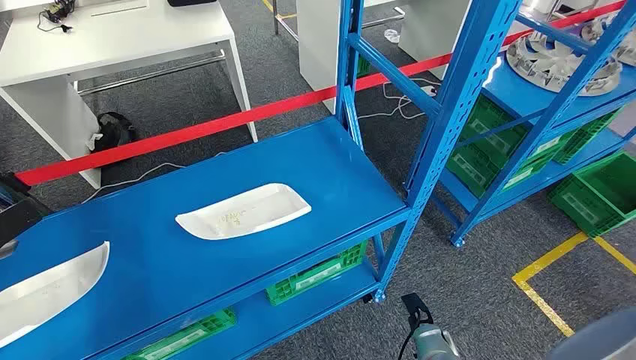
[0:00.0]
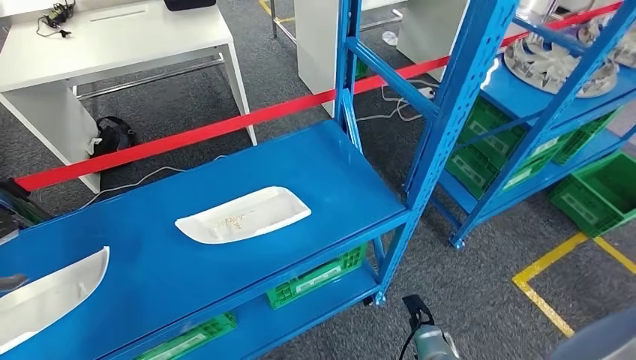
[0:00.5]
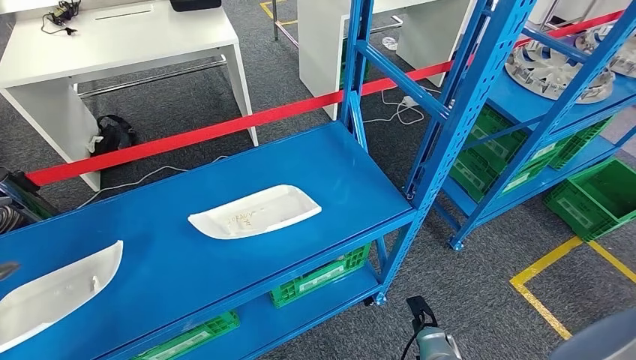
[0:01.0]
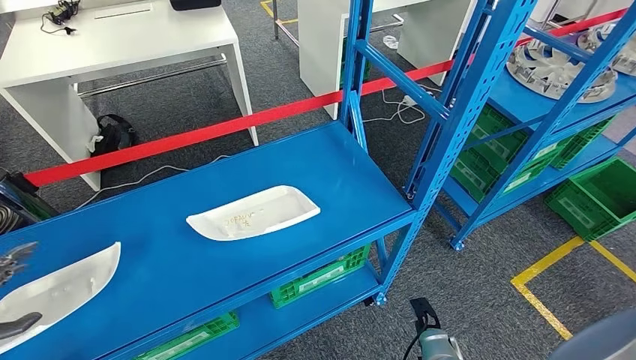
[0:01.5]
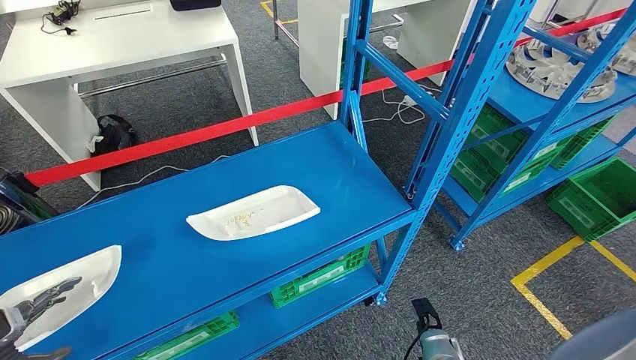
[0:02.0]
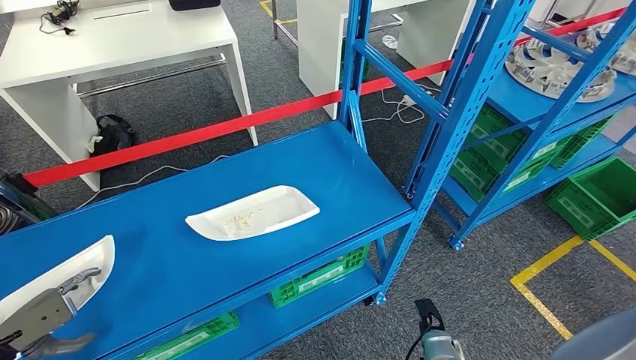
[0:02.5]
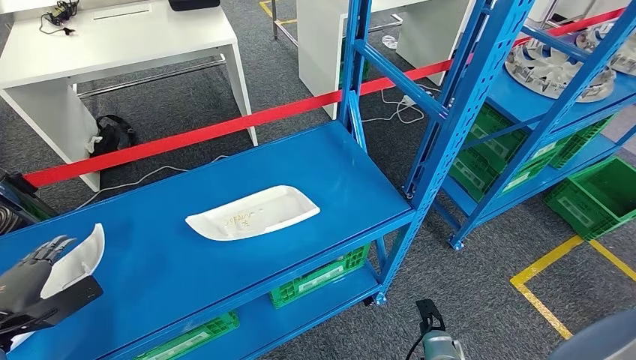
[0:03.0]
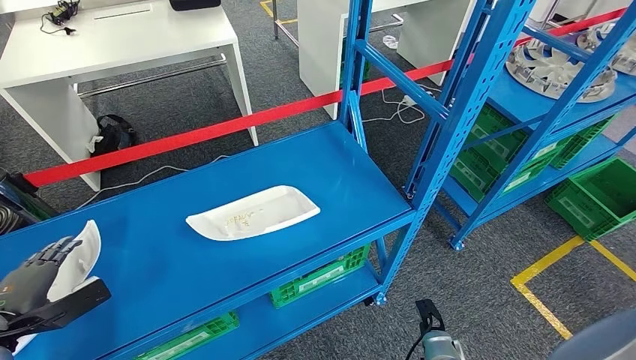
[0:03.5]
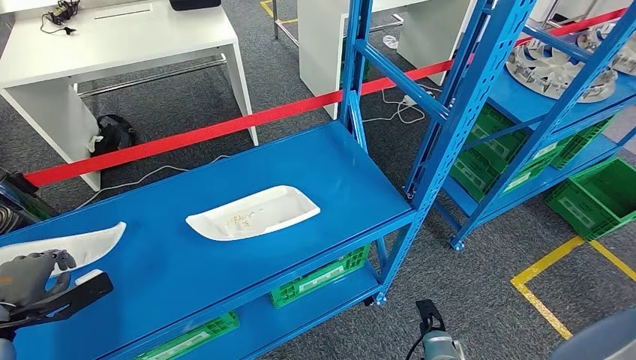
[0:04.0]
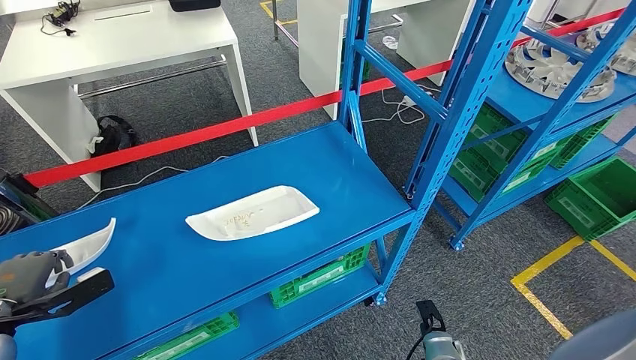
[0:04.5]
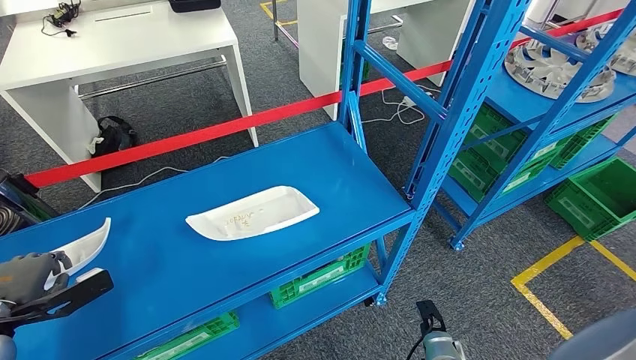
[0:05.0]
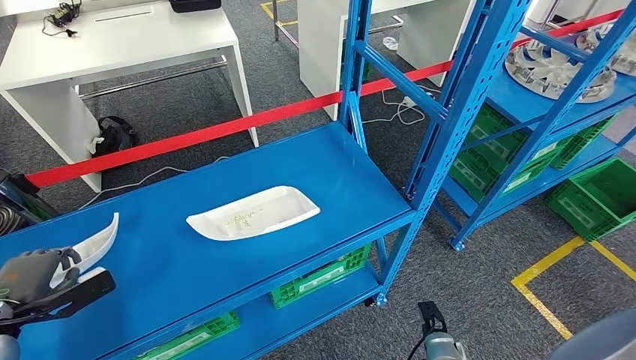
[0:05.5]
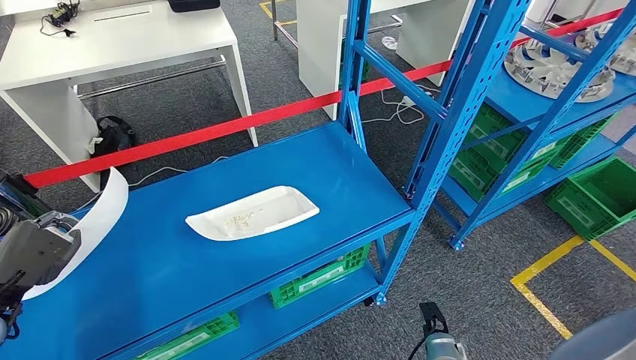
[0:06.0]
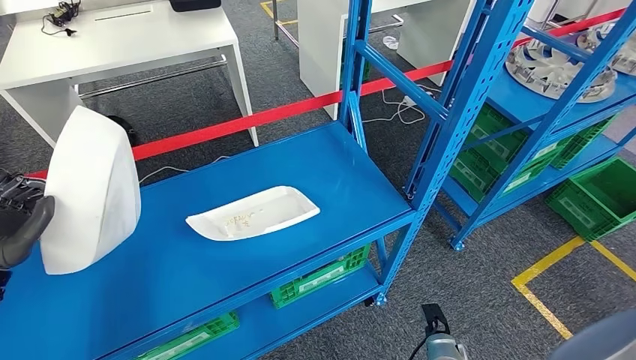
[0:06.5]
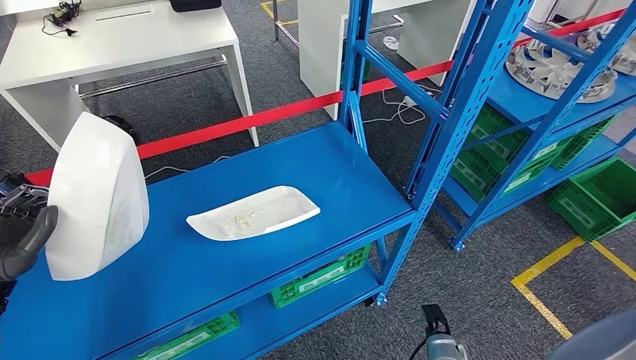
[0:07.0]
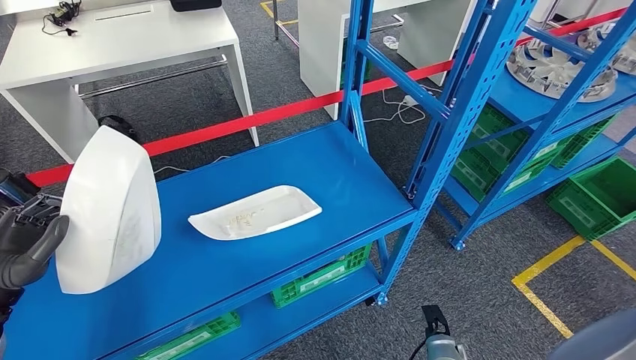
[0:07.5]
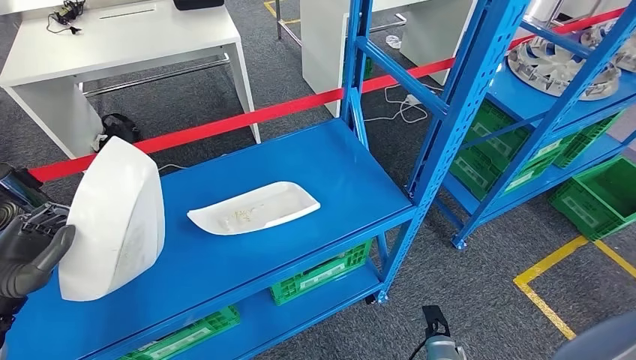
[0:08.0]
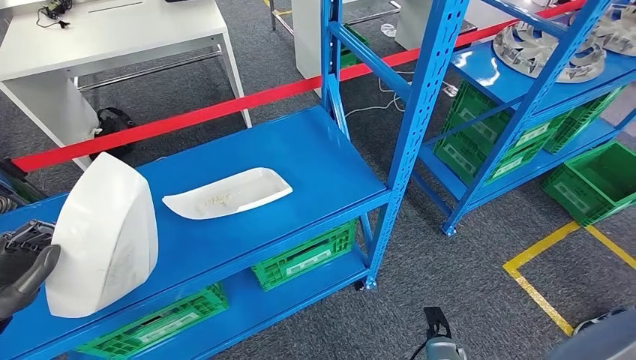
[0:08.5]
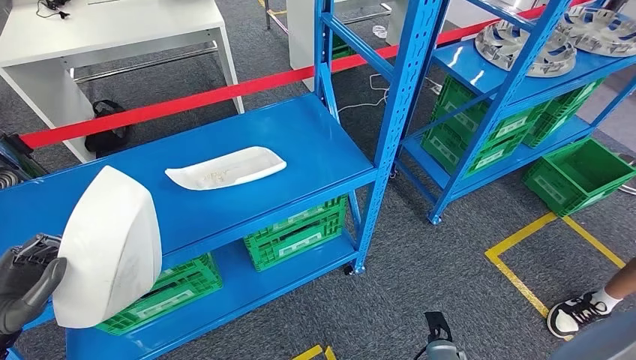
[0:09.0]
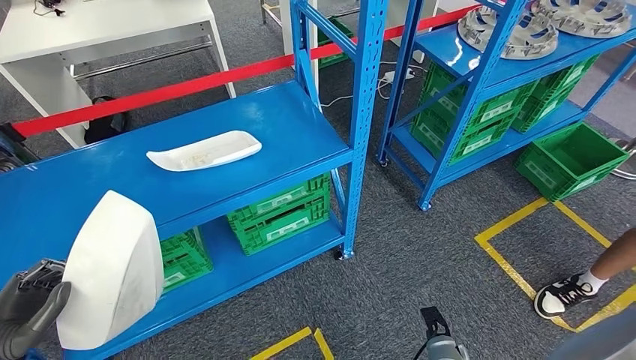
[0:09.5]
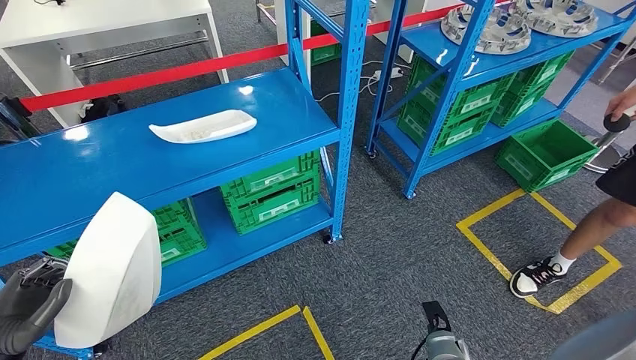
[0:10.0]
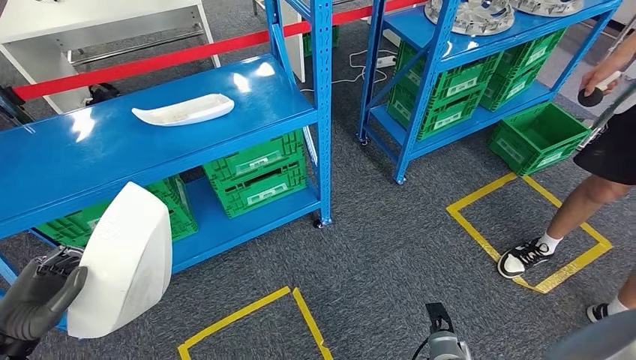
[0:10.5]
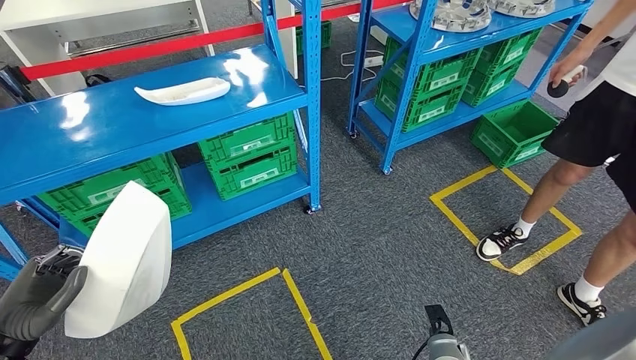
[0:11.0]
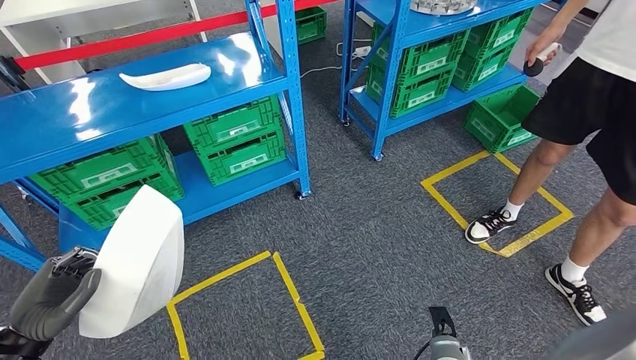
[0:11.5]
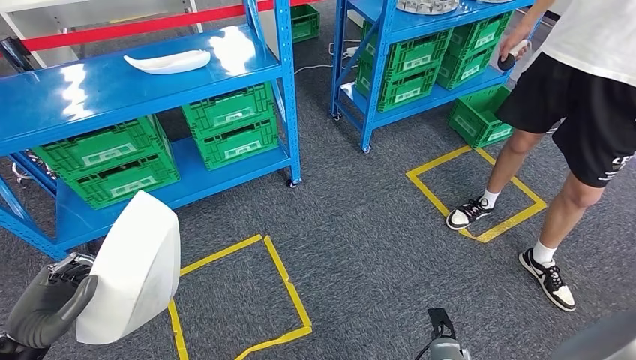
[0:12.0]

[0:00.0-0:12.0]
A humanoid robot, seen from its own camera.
Step, 0:00.0 to 0:07.5: Take small components from the rack.
0:02.0 to 0:04.0: The left hand is displaced to the right by some 5 cm.

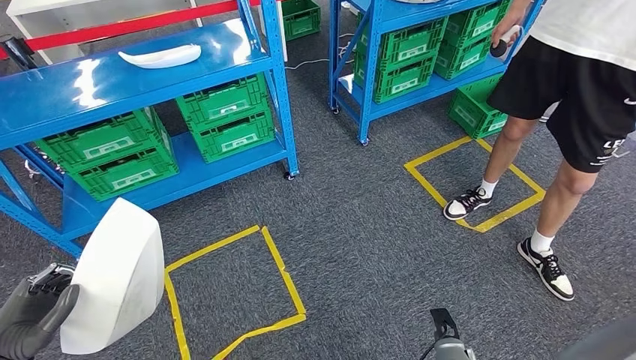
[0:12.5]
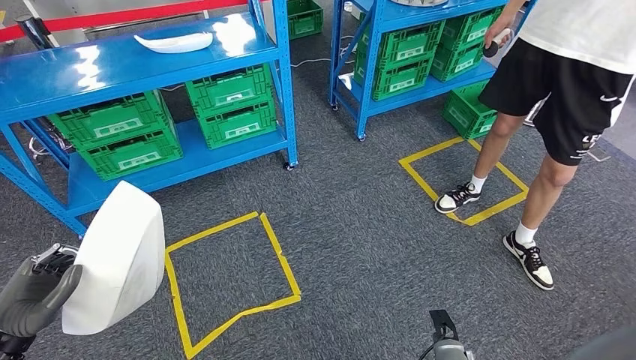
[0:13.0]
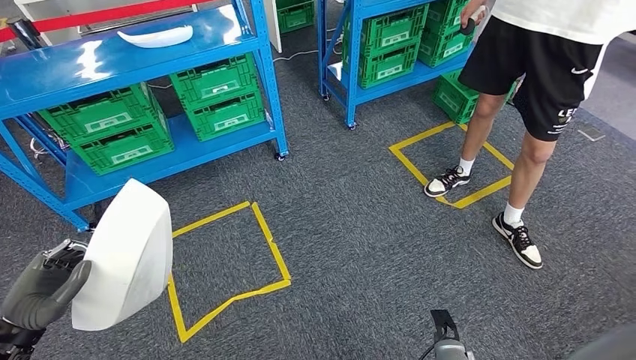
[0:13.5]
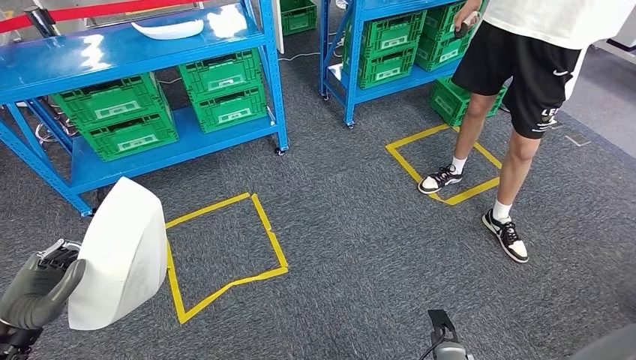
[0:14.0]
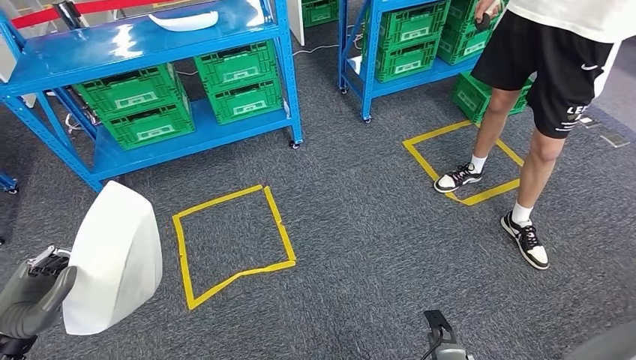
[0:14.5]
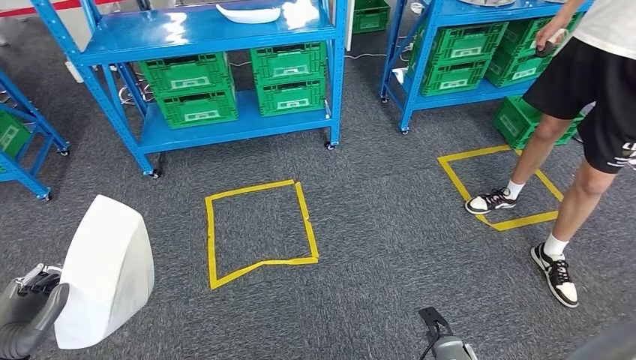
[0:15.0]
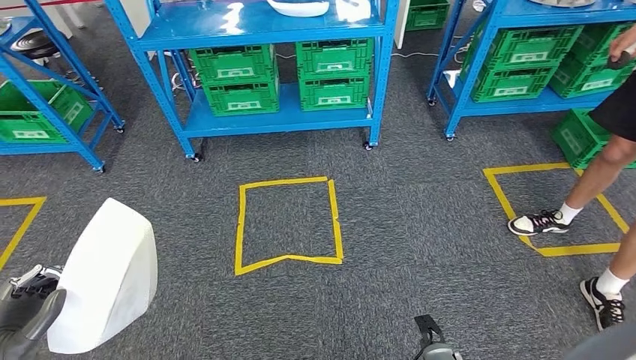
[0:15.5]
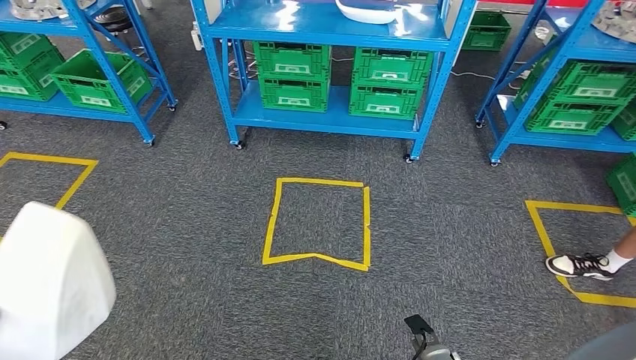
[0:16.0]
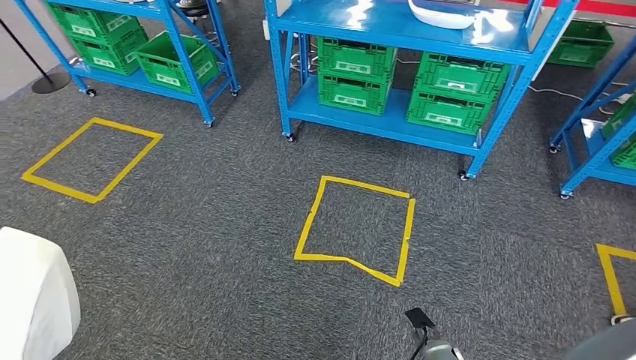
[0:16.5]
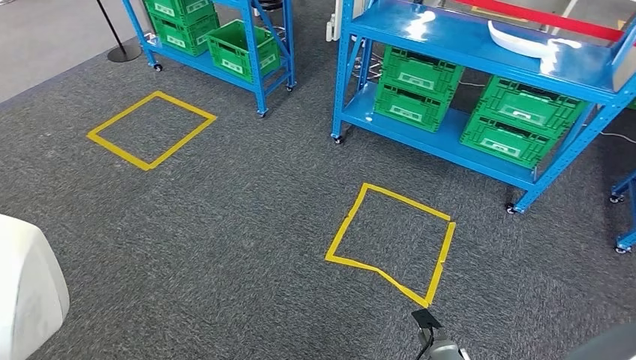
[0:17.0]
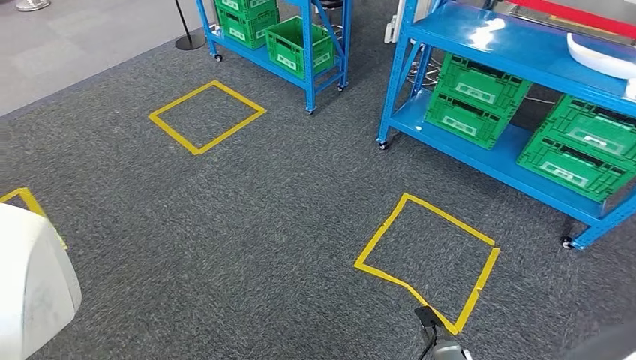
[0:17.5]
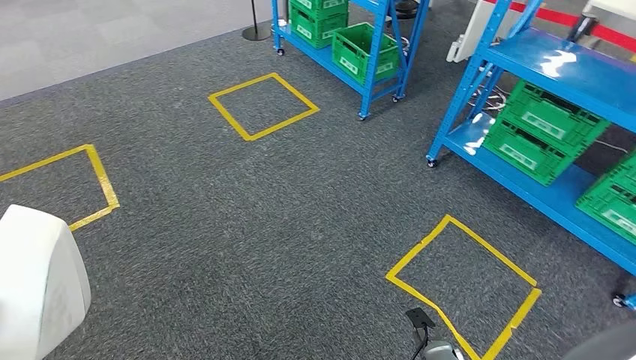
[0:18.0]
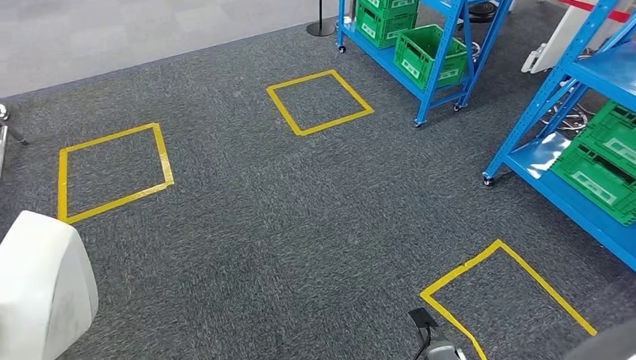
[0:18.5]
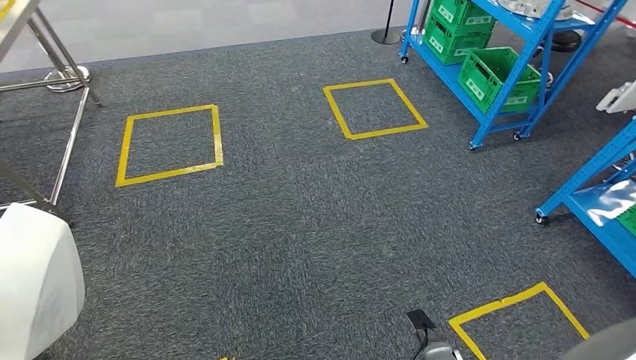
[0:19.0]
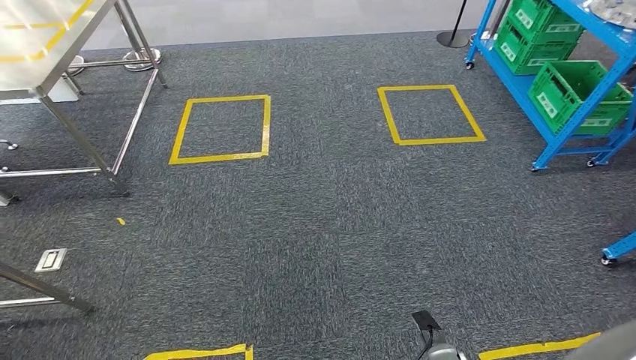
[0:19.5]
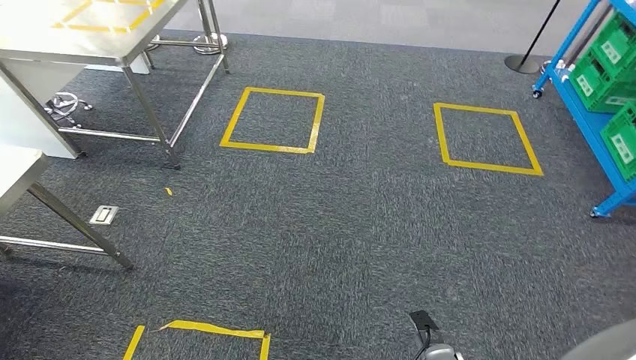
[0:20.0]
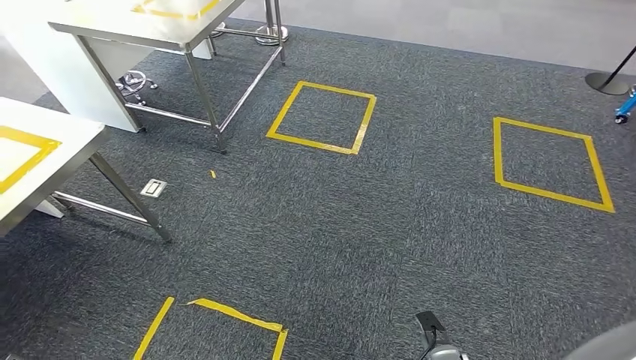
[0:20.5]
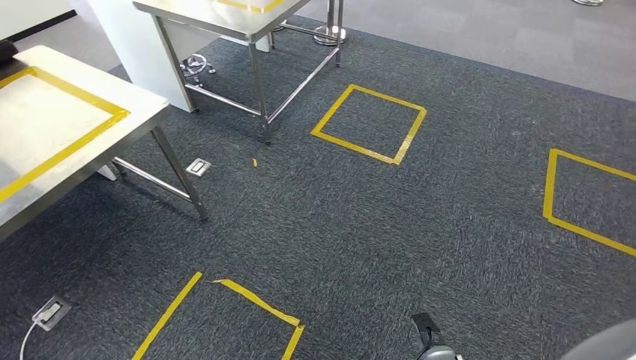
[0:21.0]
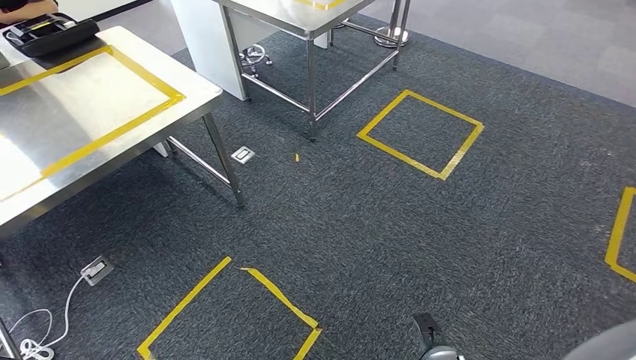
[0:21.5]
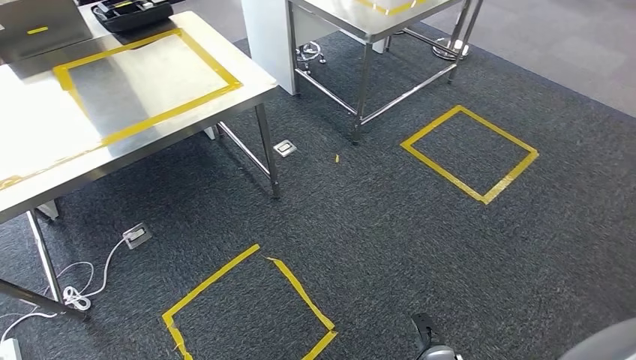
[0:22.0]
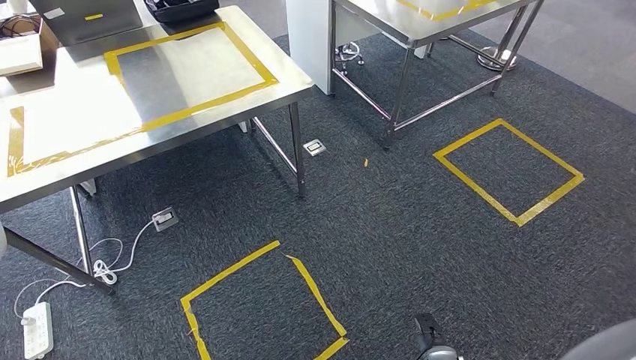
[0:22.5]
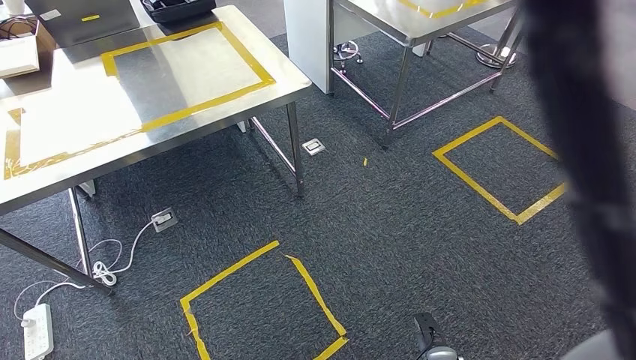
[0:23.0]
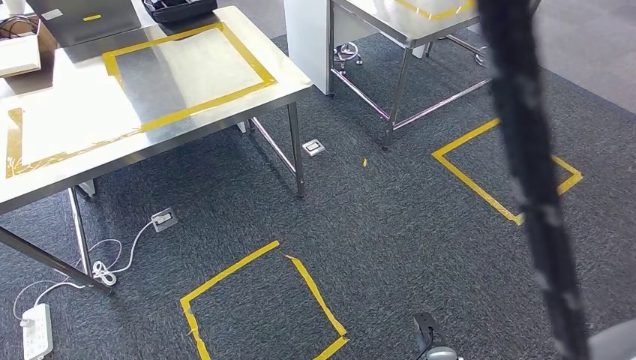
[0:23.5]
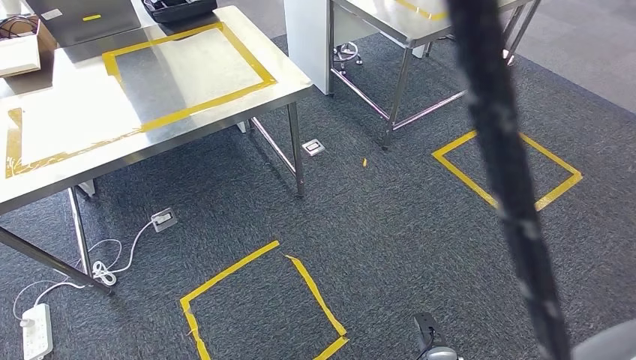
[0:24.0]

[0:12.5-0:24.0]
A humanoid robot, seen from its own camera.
Step, 0:12.5 to 0:22.0: Move the small parts to the workbench.
